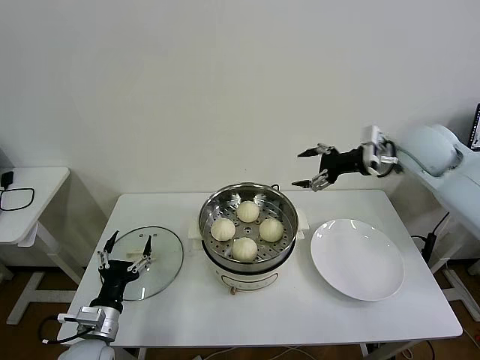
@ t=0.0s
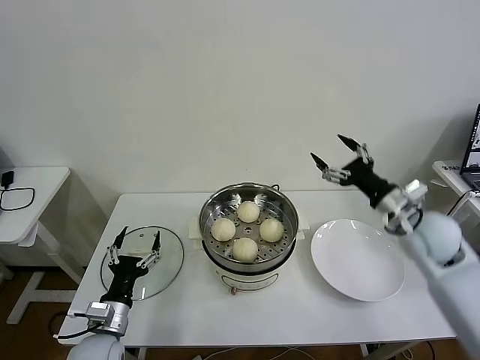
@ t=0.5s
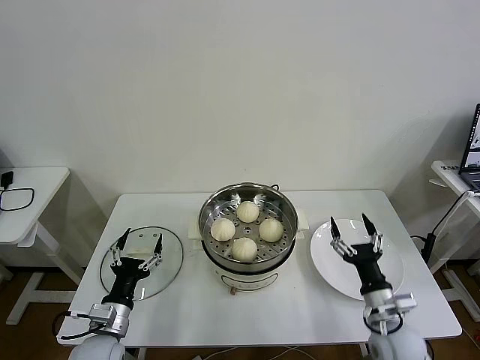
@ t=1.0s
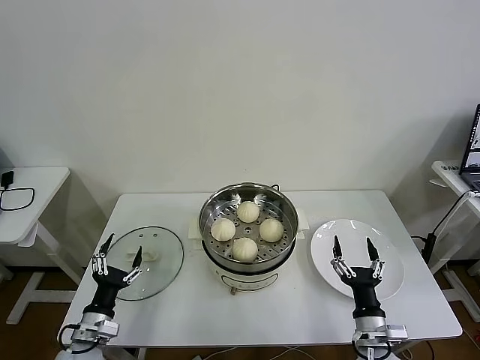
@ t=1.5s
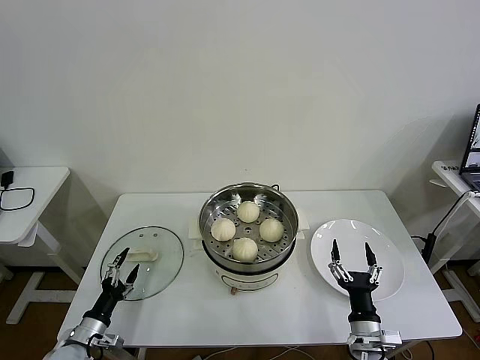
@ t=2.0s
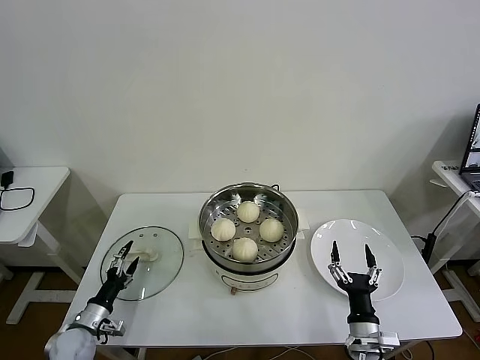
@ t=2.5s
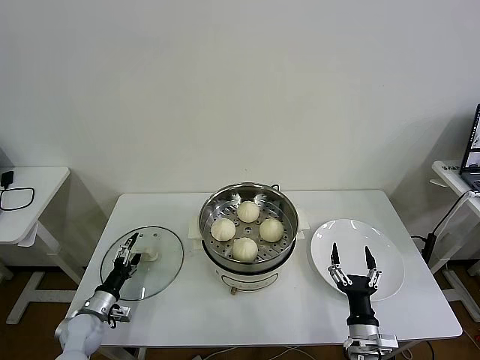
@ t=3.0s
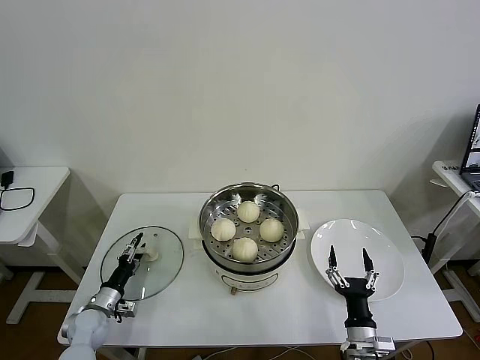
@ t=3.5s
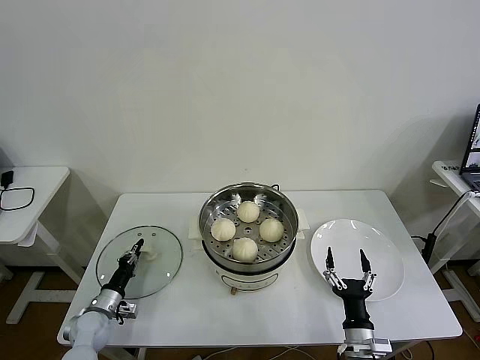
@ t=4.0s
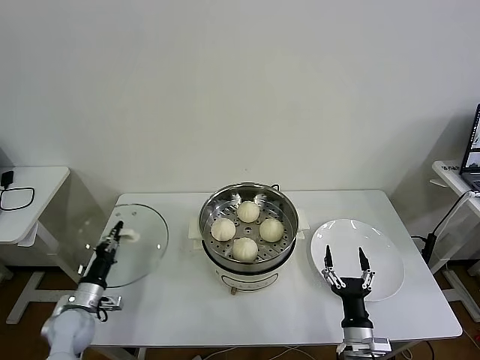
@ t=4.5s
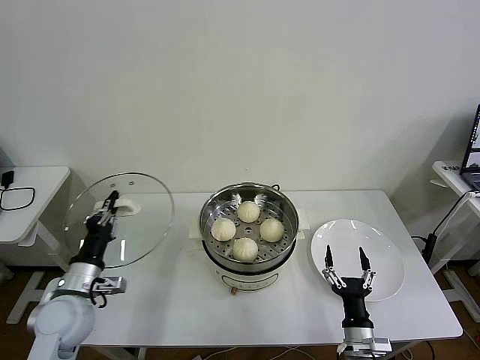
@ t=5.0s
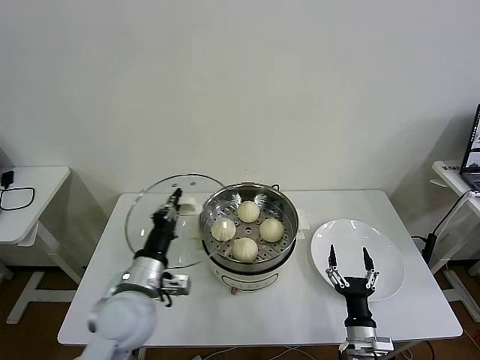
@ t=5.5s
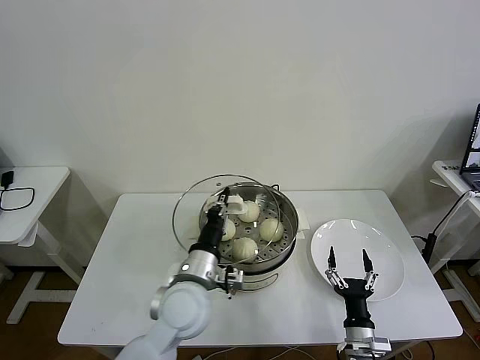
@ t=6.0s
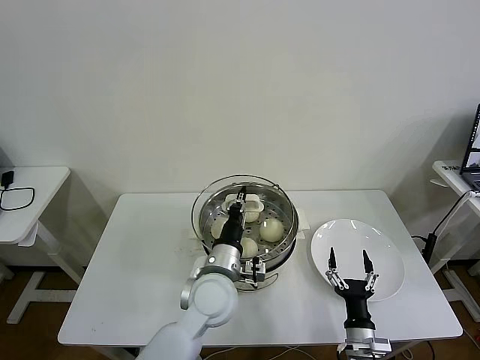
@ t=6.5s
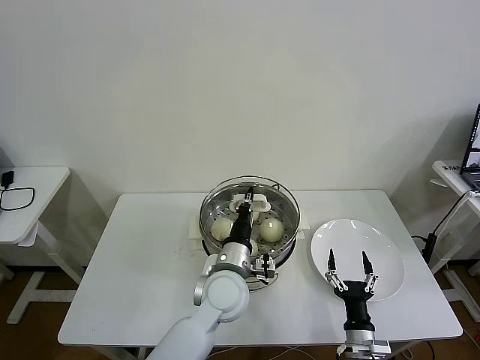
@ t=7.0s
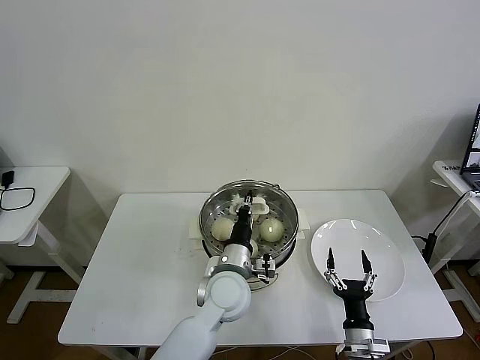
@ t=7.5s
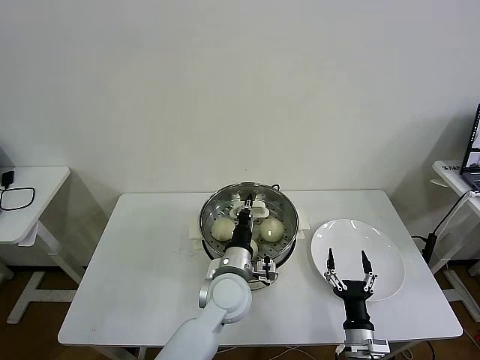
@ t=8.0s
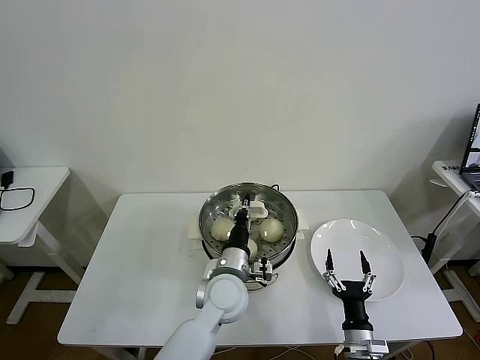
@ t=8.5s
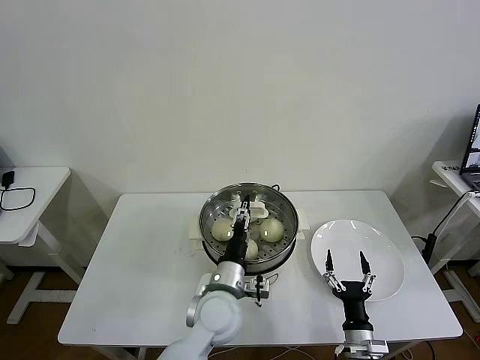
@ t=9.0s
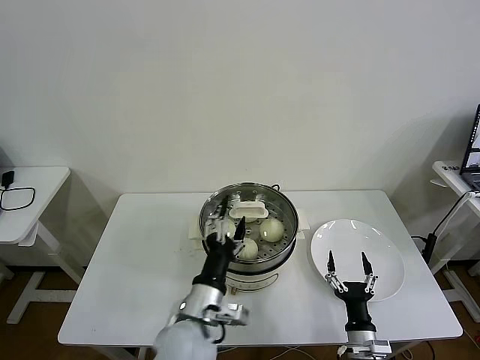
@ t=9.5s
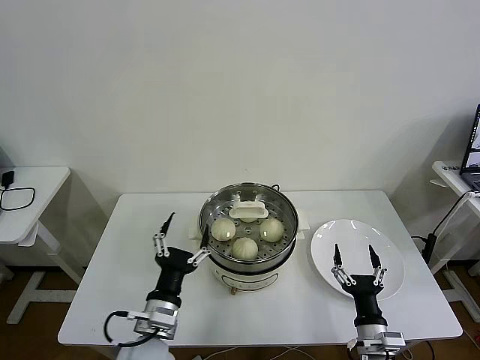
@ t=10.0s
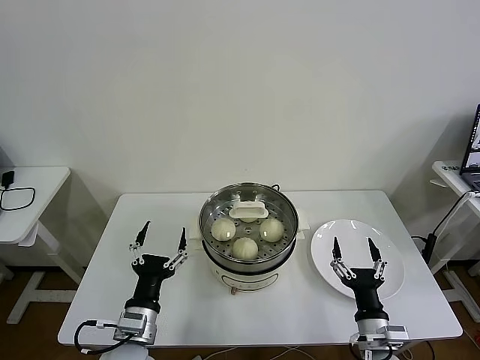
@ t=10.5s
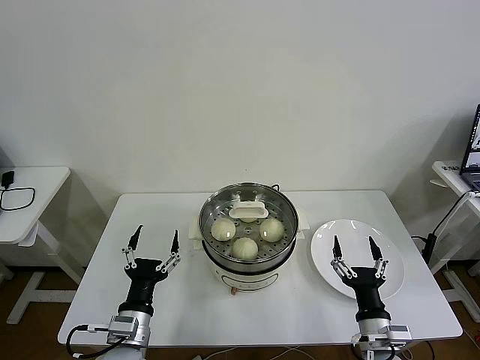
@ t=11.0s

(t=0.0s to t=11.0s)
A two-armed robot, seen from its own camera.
Task of the whole recording: take steamed baozi put them in steamer then cover it.
Step, t=0.0s - t=4.0s: Grasp the pot lid with left gripper.
Step, t=4.5s - t=9.0s: Place the pot lid on the steamer with left gripper.
t=0.0s - t=2.0s: The left gripper travels downward and to the left by approximately 15 cm; the right gripper moves downward and backward, some 50 cm.
t=2.0s - t=3.5s: The left gripper moves forward, some 10 cm.
t=3.5s - t=5.5s: The left gripper goes roughly 30 cm upward and to the right, and closes its fingers.
t=5.5s - t=7.5s: The left gripper goes roughly 20 cm to the right.
t=7.5s - t=9.0s: The left gripper opens.
t=9.0s - t=11.0s: The left gripper is displaced to the left and backward by about 20 cm; the right gripper heads upward, covering about 10 cm.
